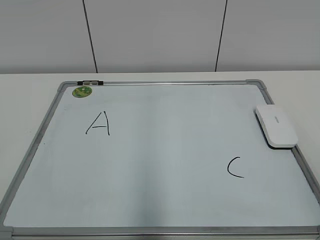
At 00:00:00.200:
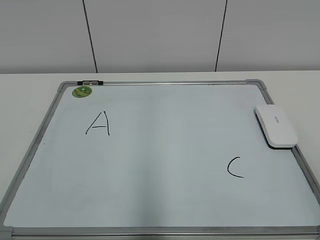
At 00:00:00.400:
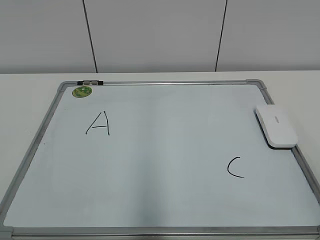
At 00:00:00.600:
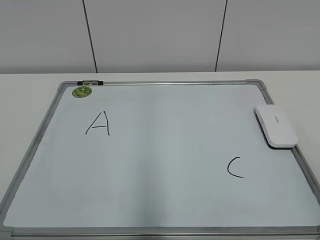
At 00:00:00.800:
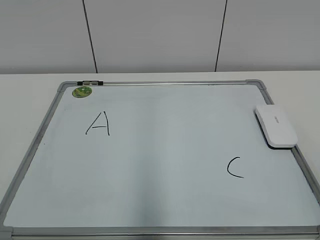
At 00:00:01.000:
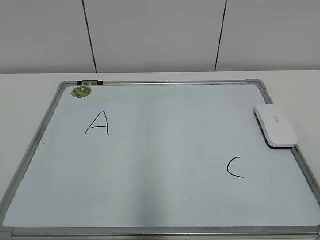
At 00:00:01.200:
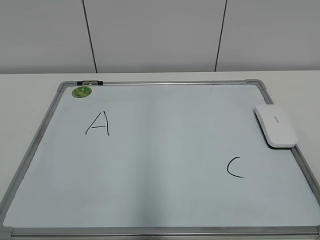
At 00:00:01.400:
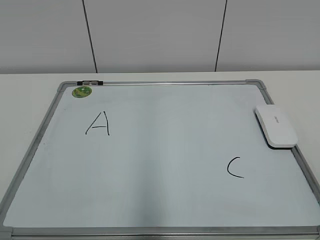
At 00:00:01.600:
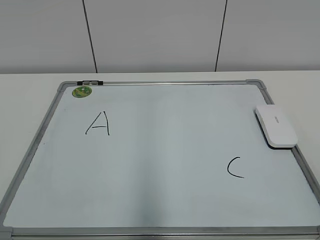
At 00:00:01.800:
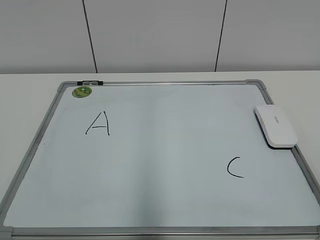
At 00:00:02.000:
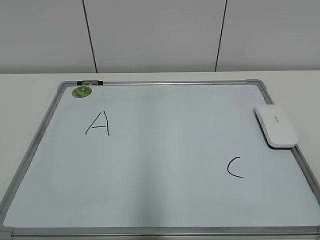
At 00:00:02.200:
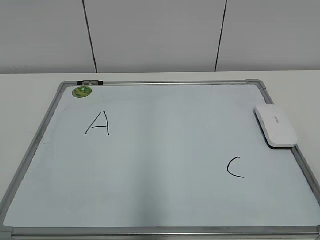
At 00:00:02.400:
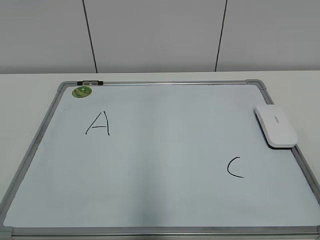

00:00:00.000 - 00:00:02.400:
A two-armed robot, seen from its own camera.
Task of the whole recording: pick up the eraser on the blackboard and erase the letter "B".
00:00:01.200 - 00:00:02.400: Neither gripper changes place.
